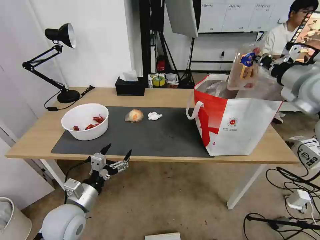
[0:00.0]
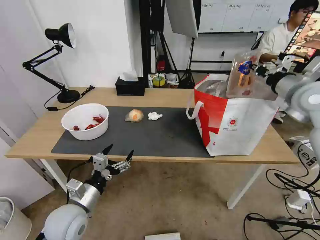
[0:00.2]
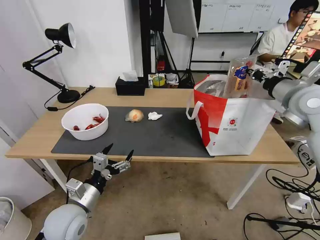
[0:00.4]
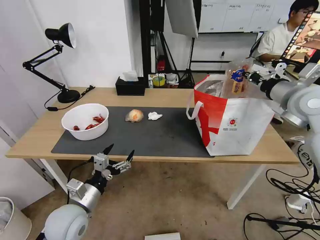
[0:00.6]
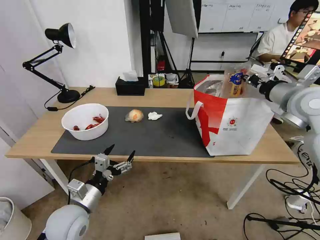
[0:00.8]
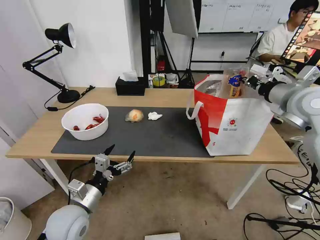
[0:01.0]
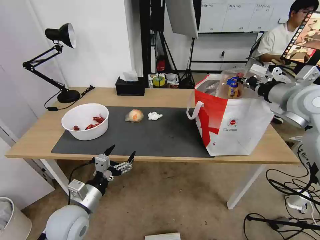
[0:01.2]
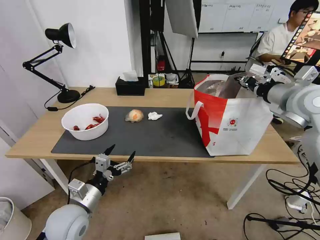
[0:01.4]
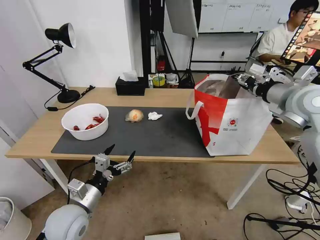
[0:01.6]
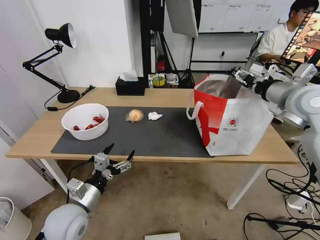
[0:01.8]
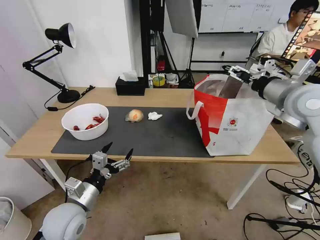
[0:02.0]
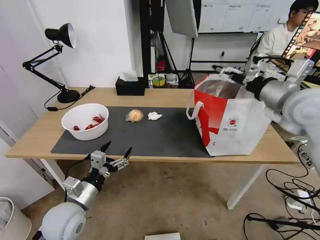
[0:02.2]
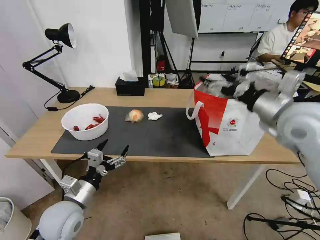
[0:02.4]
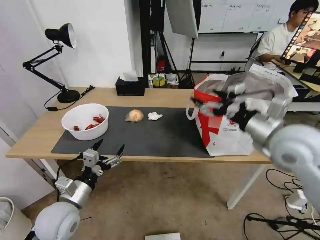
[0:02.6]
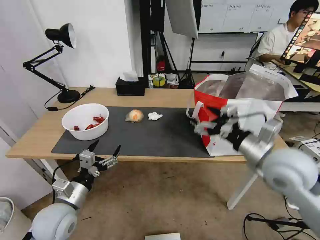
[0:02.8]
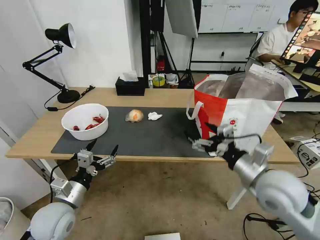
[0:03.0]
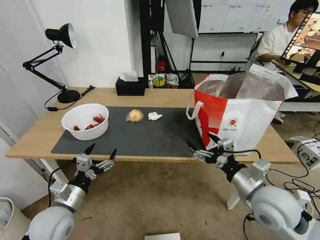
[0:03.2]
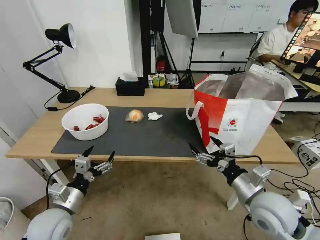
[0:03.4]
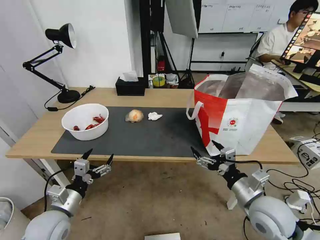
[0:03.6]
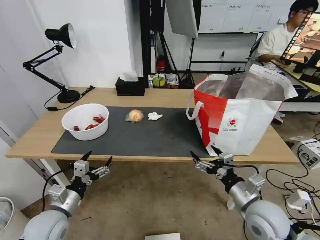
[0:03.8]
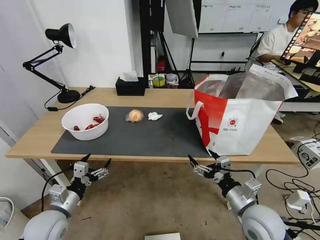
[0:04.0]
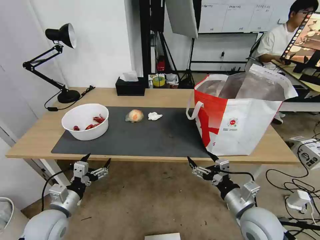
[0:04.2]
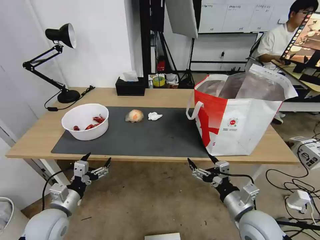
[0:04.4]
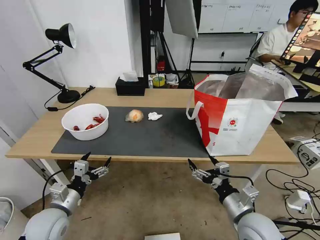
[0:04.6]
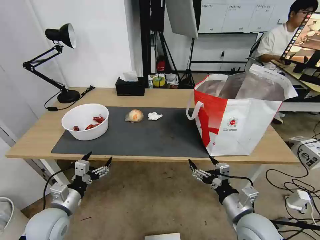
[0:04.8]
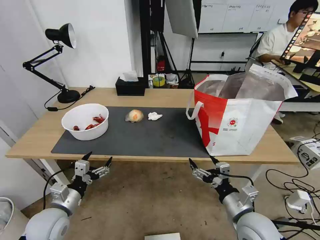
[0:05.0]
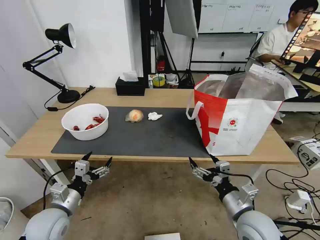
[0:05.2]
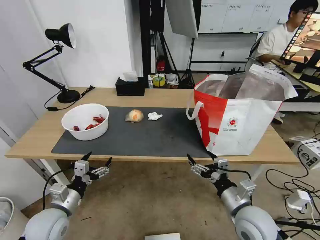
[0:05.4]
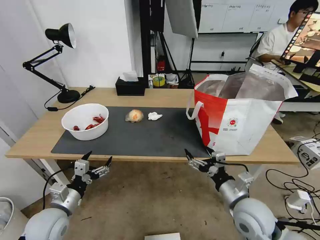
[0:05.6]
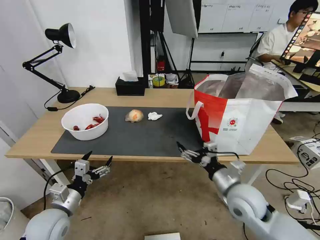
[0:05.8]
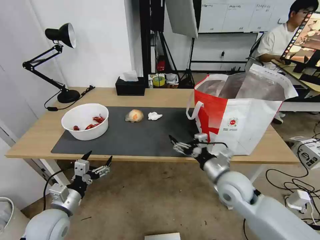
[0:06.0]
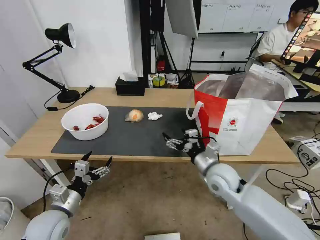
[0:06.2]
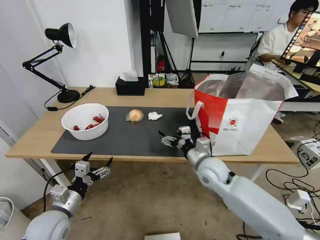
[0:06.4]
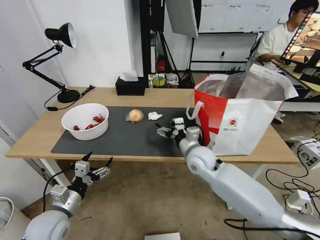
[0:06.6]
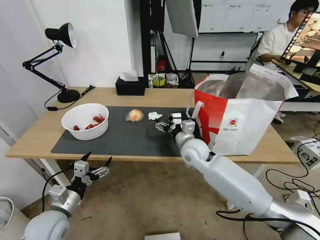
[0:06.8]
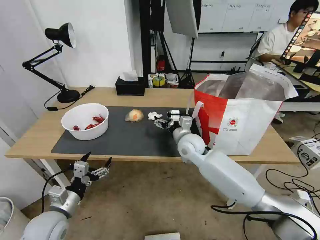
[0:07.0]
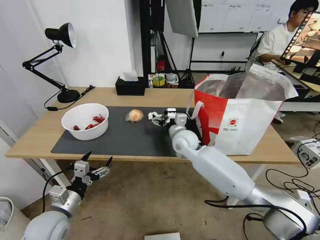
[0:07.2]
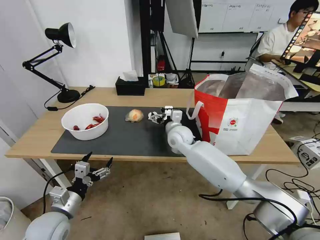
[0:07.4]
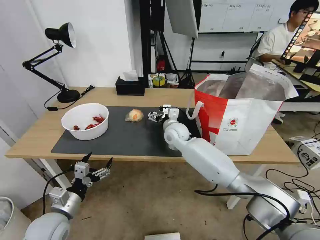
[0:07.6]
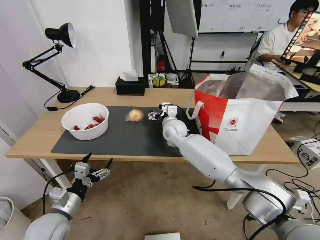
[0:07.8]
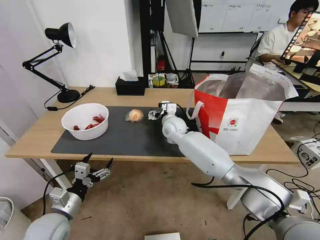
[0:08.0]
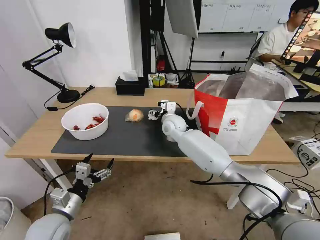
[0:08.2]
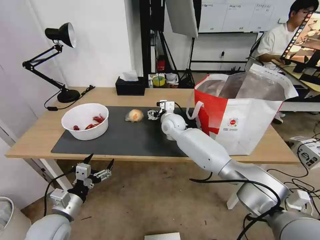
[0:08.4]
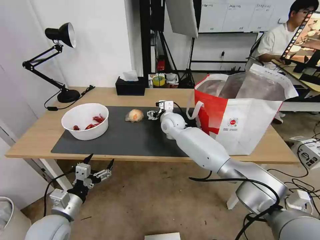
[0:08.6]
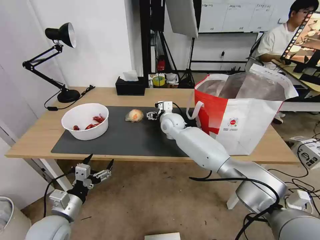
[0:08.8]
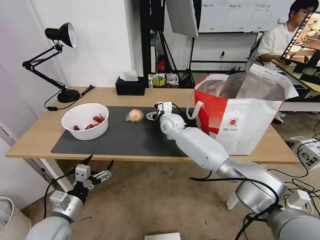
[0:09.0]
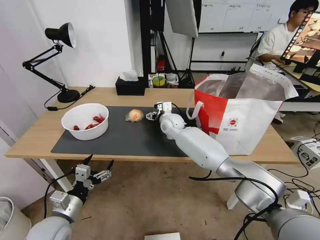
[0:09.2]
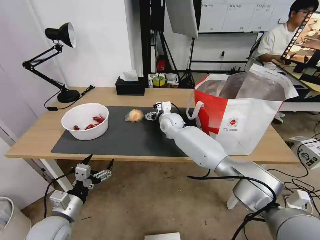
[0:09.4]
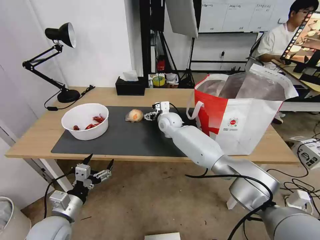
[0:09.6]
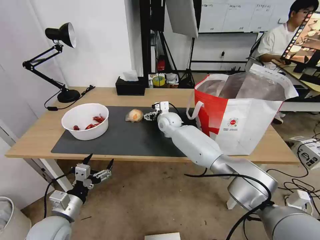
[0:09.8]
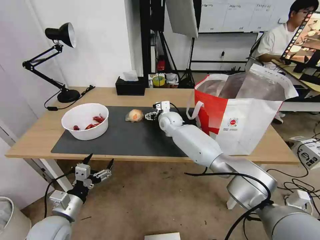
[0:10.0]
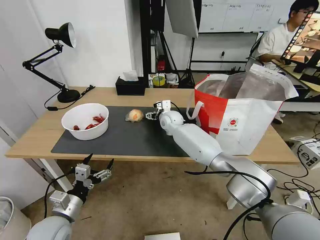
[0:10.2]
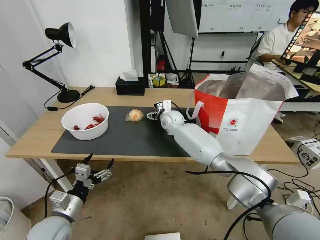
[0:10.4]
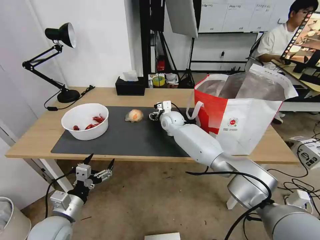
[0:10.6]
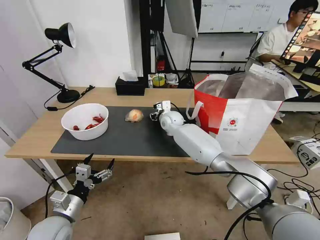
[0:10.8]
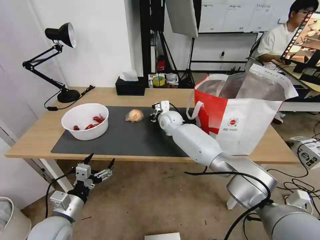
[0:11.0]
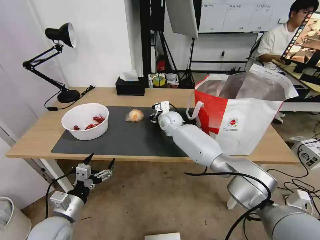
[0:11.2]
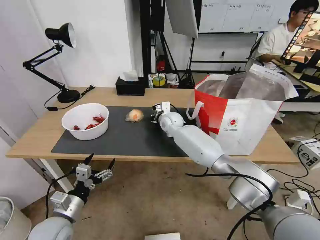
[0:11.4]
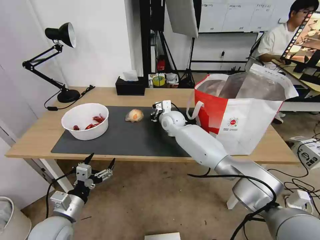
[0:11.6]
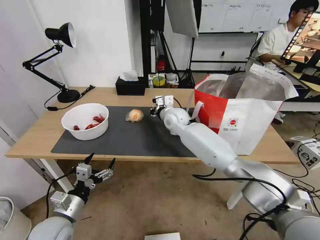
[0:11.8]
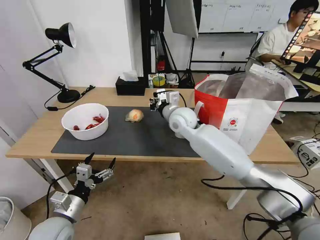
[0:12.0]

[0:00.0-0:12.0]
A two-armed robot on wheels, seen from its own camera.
Task of the whole recording: Pick up the trash from the table and place it into the takeout bag.
0:00.0 to 0:01.6: The right gripper opens up.
0:01.6 to 0:03.0: The right gripper shifts some 25 cm backward, downward and to the left, and opens its fingers.
0:03.0 to 0:04.4: The right gripper shifts about 15 cm downward and backward.
0:04.4 to 0:06.0: The right gripper goes some 10 cm forward.
0:06.0 to 0:07.6: The right gripper moves forward and to the left, roughly 25 cm.
0:07.6 to 0:09.0: The right gripper travels forward by about 5 cm.
0:09.0 to 0:10.4: The grippers stay close to where they were, moving slightly.
0:10.4 to 0:12.0: The right gripper moves backward and upward, about 15 cm, and closes its fingers.

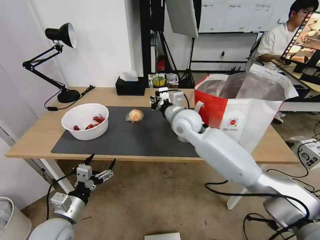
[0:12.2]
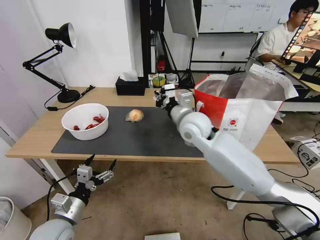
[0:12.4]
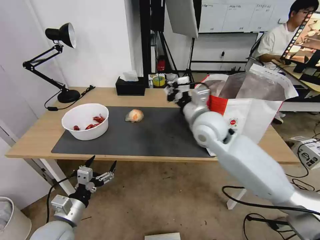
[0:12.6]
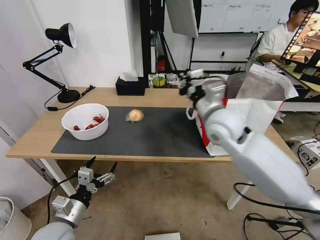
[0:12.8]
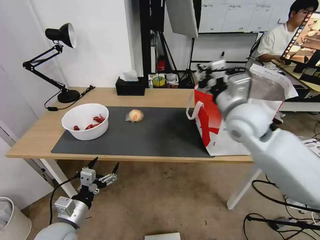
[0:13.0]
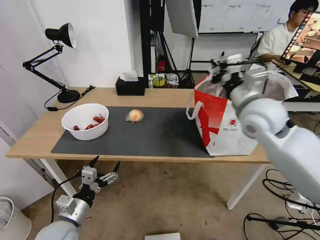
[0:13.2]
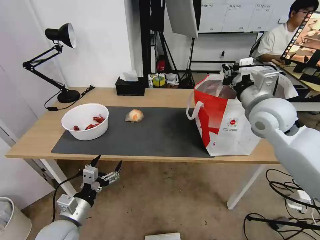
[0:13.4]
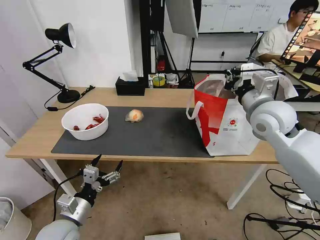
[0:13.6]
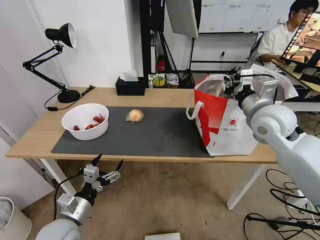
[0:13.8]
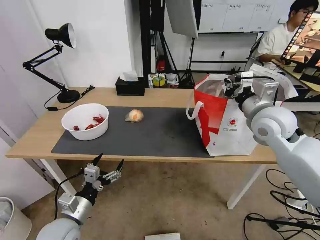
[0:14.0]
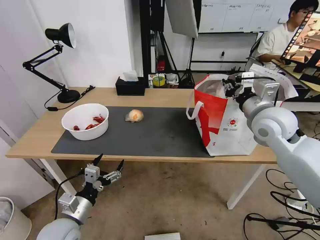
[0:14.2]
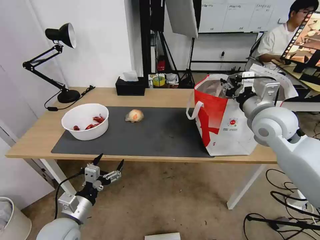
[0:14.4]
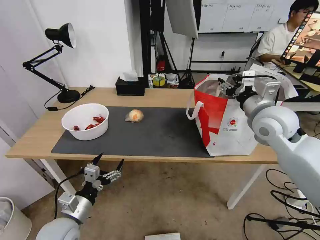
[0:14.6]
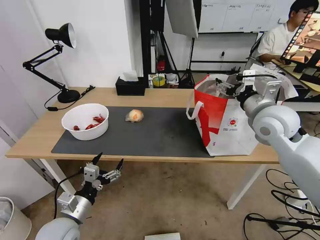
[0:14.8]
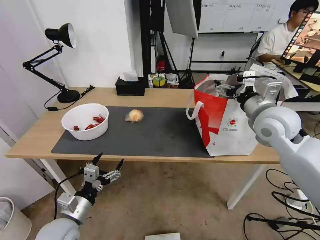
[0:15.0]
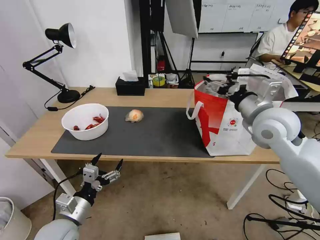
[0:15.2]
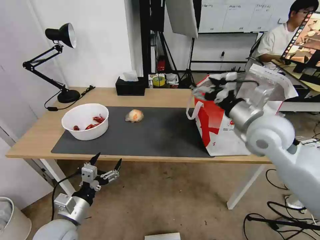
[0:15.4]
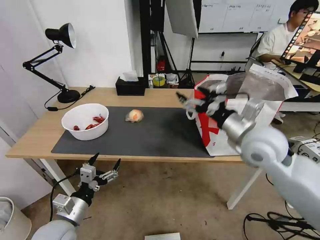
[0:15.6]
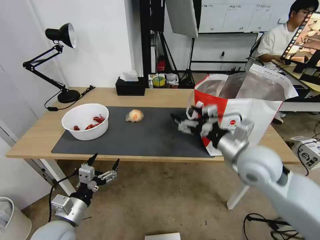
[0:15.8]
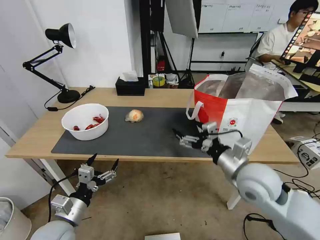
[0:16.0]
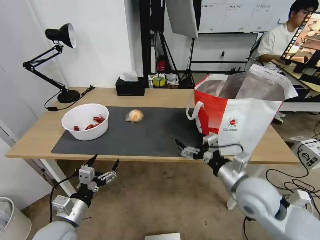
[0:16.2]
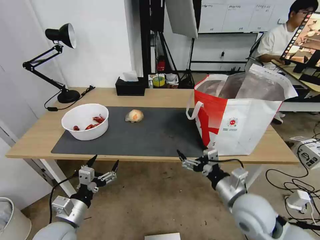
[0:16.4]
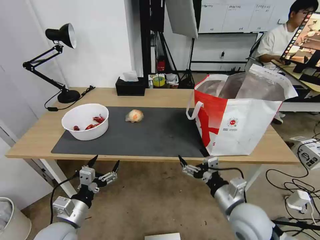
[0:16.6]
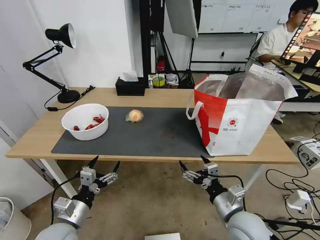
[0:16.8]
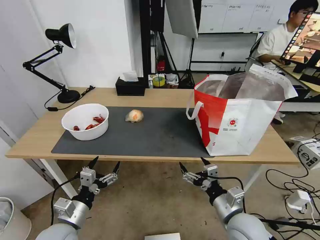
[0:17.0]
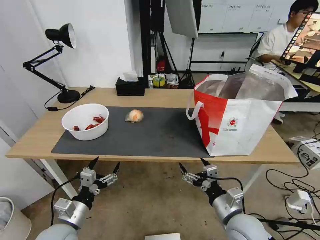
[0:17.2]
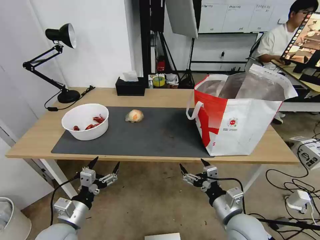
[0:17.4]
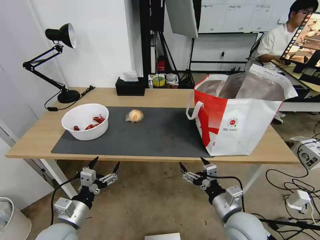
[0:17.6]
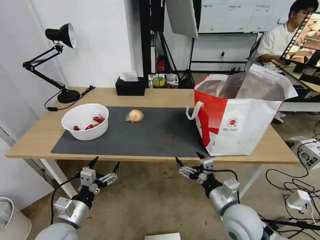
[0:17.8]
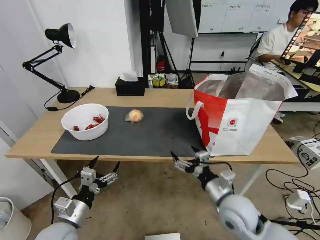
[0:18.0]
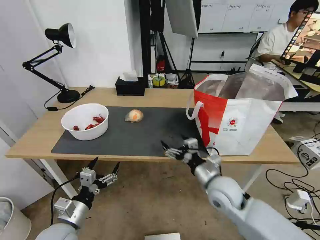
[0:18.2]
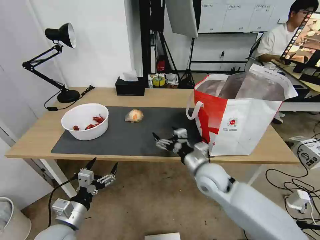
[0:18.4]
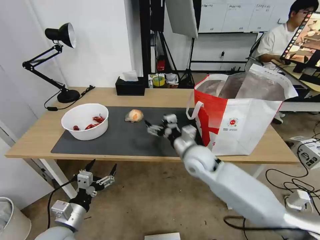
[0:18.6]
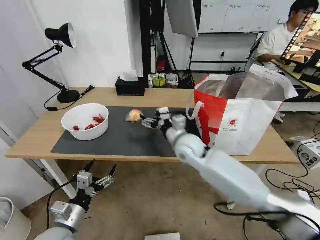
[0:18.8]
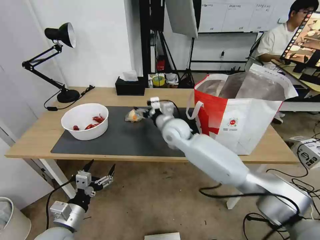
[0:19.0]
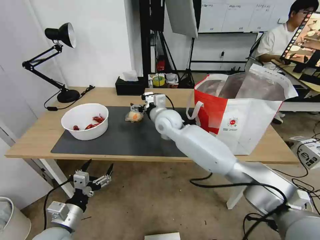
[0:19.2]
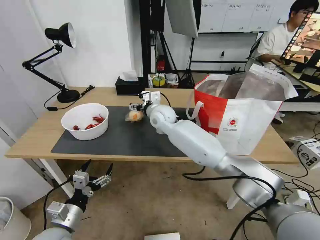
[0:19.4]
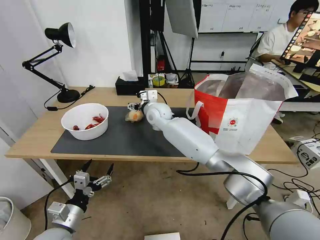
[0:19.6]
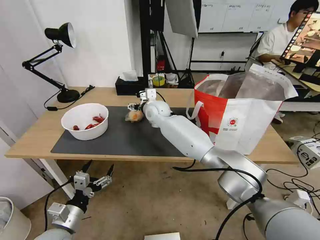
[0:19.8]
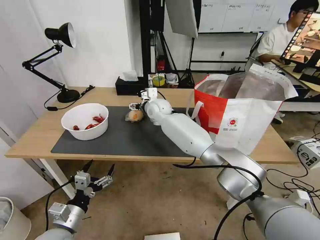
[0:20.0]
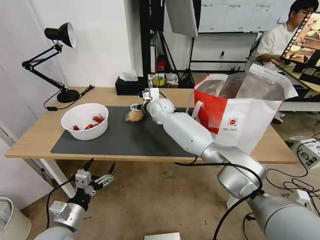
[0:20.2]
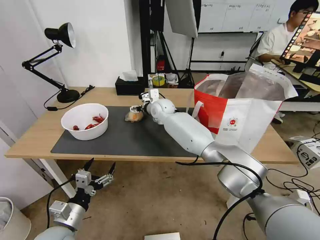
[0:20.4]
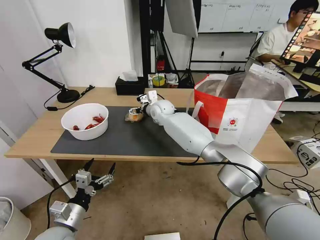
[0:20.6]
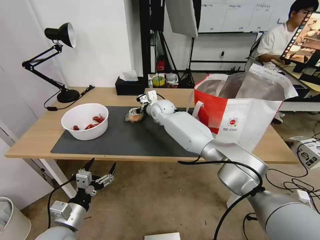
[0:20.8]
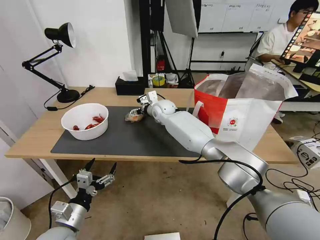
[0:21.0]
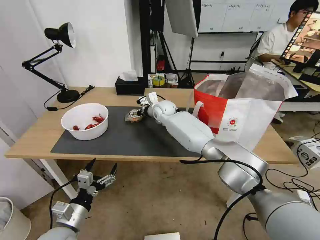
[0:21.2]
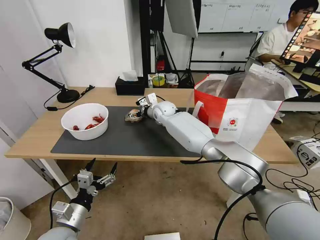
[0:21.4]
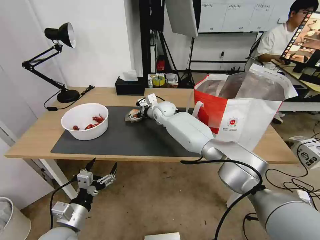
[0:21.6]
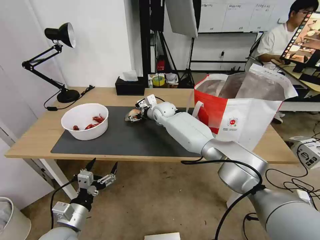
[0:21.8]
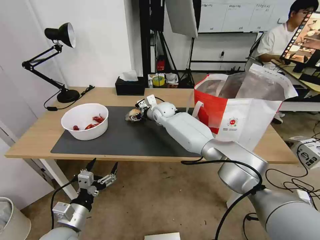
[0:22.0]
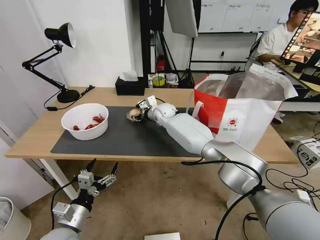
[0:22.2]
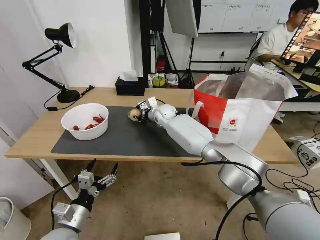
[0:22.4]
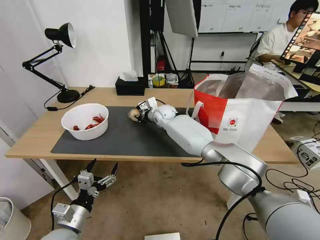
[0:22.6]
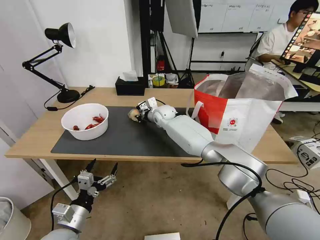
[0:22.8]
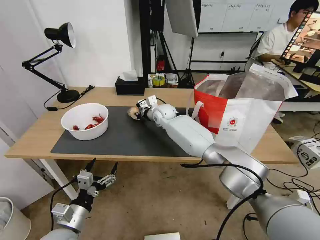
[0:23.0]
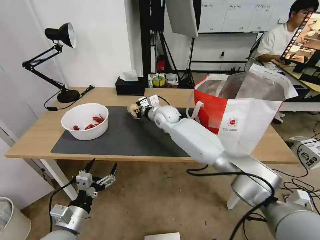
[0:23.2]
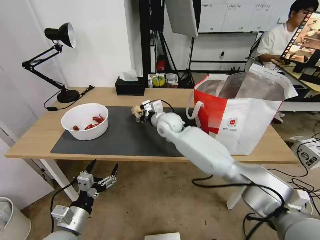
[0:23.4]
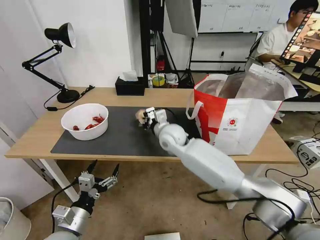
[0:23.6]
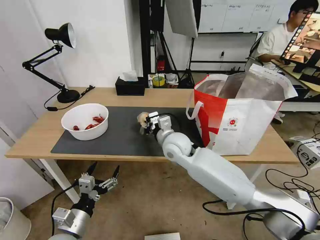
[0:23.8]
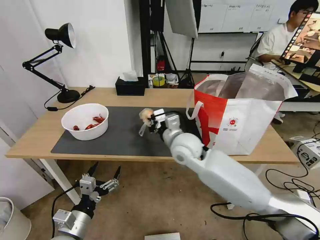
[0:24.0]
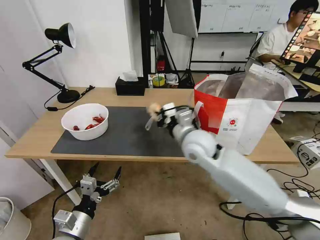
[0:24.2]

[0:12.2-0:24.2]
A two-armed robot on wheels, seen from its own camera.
Task of the whole recording: Pick up the trash from the table and place it into the takeout bag.
0:12.2 to 0:13.8: The right gripper goes approximately 20 cm to the right.
0:13.8 to 0:15.2: The right gripper opens.
0:15.2 to 0:16.6: The right gripper goes some 25 cm downward and backward.
0:16.6 to 0:18.2: The right gripper shifts approximately 10 cm forward.
0:18.2 to 0:19.8: The right gripper heads forward and to the left, covering approximately 35 cm.
0:19.8 to 0:21.2: The right gripper moves approximately 5 cm.
0:21.2 to 0:22.6: The right gripper closes.
0:22.6 to 0:24.2: The right gripper is displaced backward by roughly 25 cm.
